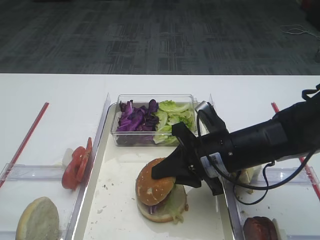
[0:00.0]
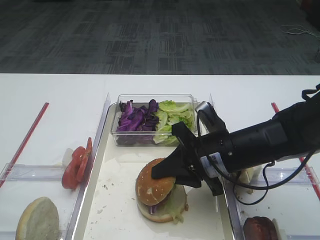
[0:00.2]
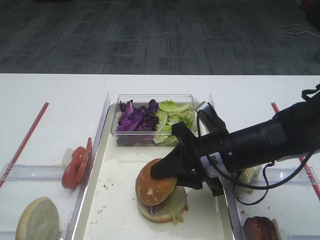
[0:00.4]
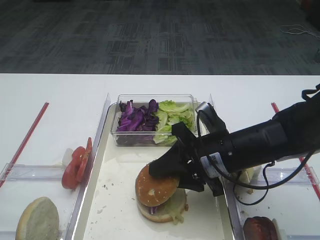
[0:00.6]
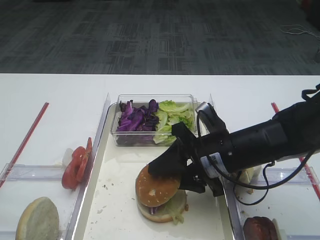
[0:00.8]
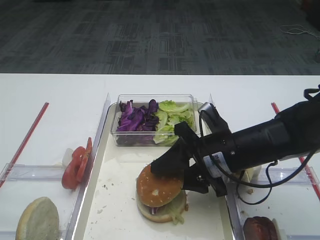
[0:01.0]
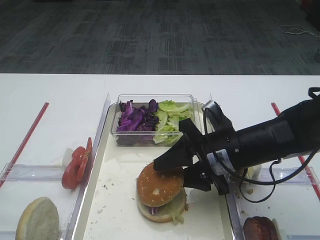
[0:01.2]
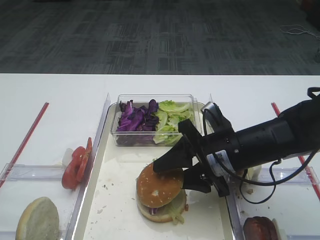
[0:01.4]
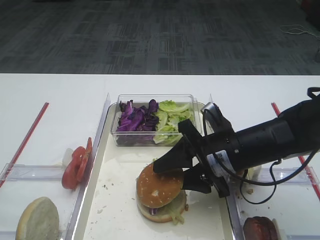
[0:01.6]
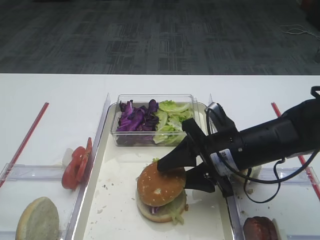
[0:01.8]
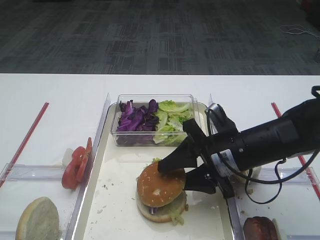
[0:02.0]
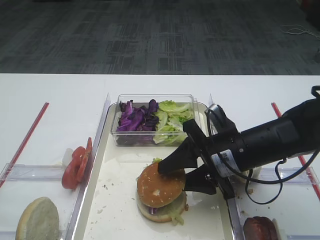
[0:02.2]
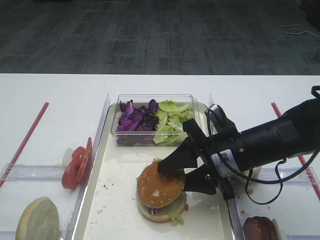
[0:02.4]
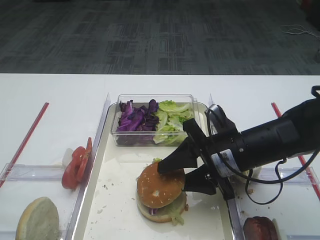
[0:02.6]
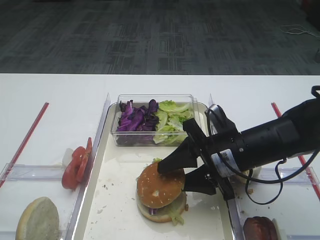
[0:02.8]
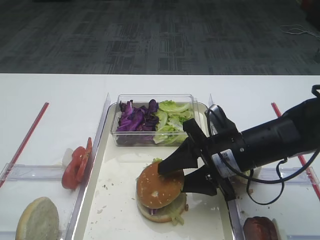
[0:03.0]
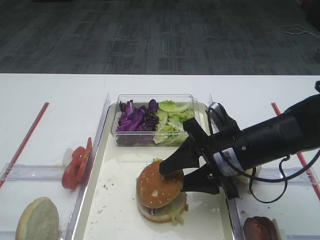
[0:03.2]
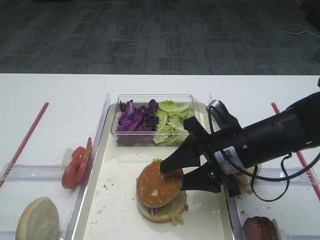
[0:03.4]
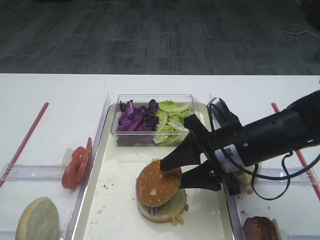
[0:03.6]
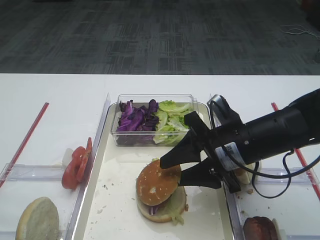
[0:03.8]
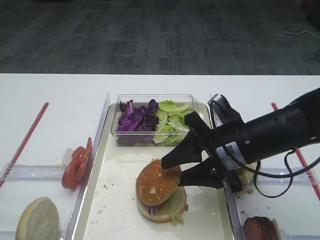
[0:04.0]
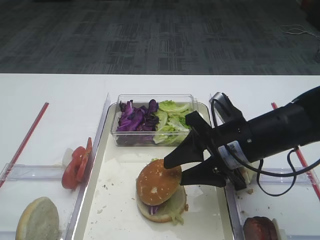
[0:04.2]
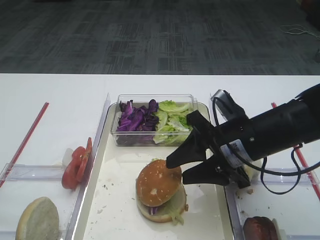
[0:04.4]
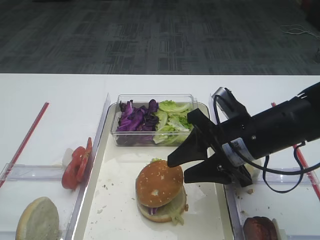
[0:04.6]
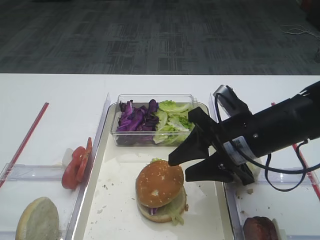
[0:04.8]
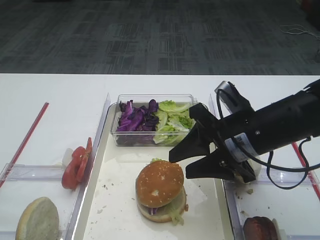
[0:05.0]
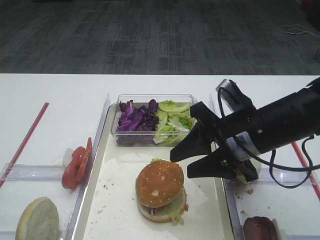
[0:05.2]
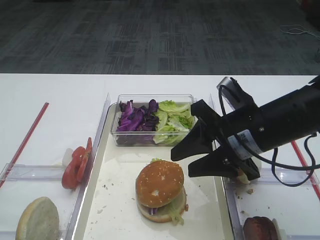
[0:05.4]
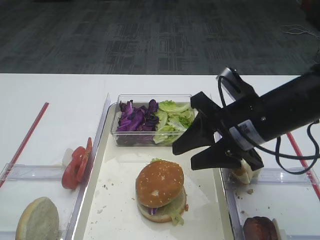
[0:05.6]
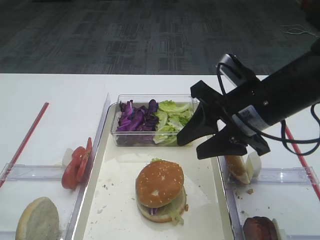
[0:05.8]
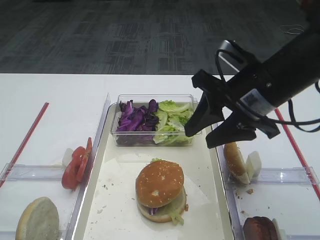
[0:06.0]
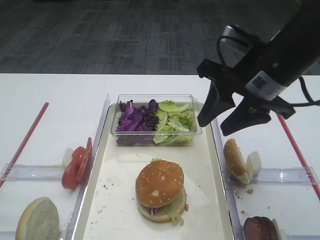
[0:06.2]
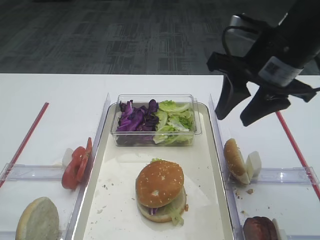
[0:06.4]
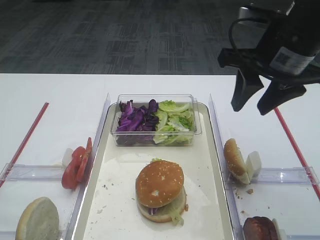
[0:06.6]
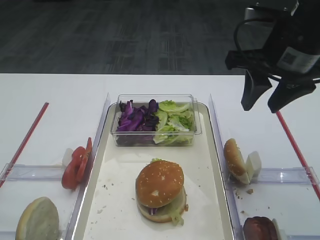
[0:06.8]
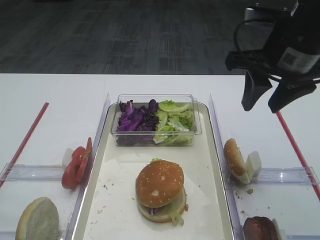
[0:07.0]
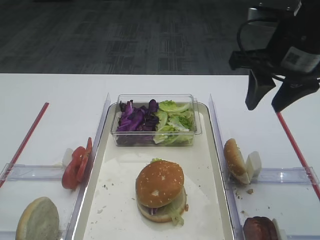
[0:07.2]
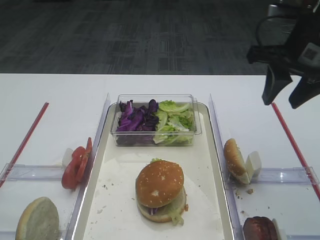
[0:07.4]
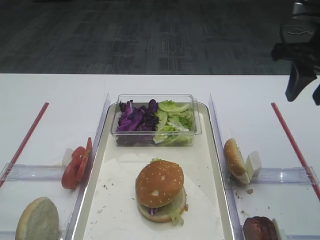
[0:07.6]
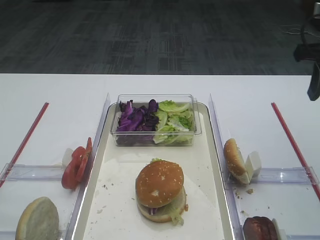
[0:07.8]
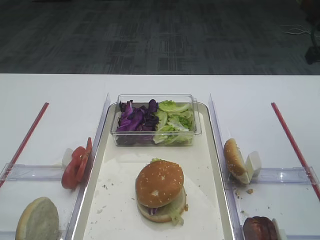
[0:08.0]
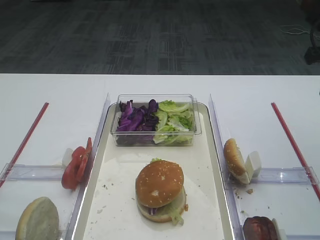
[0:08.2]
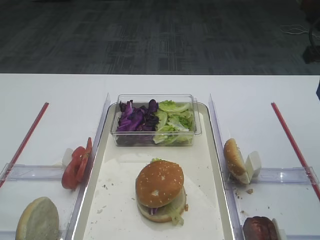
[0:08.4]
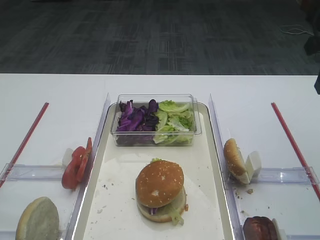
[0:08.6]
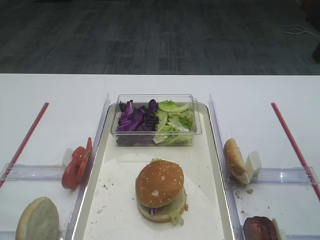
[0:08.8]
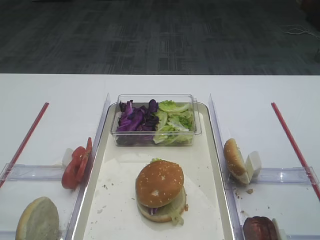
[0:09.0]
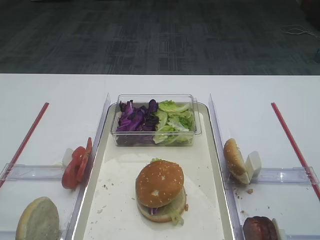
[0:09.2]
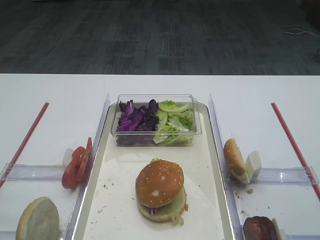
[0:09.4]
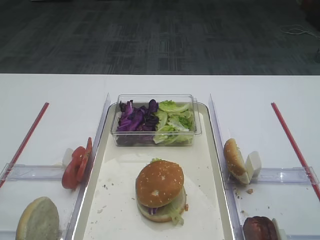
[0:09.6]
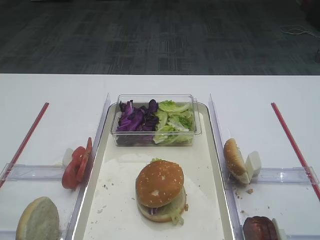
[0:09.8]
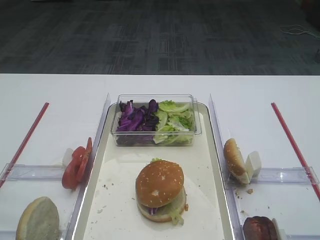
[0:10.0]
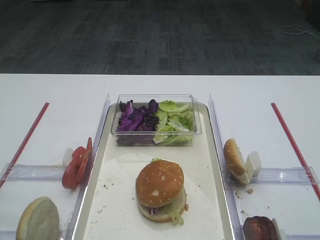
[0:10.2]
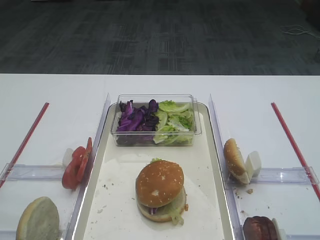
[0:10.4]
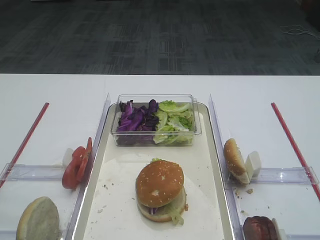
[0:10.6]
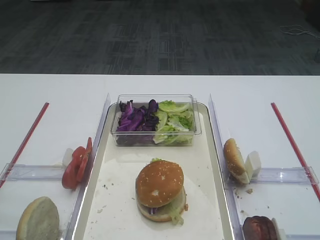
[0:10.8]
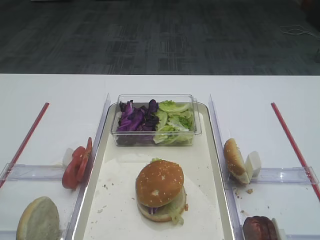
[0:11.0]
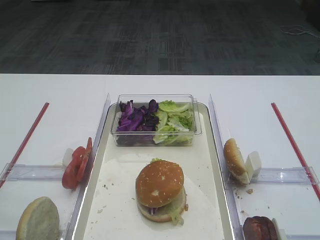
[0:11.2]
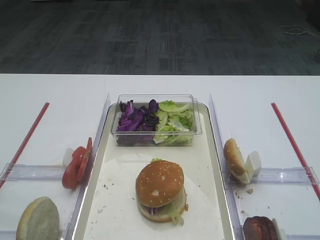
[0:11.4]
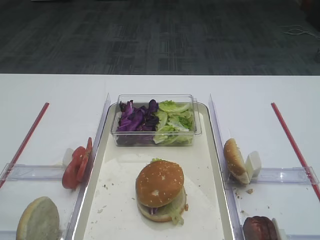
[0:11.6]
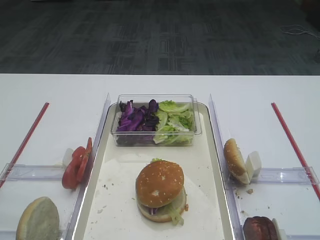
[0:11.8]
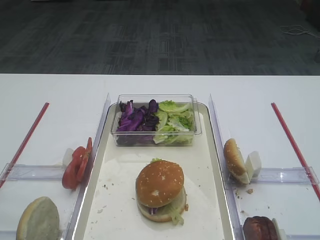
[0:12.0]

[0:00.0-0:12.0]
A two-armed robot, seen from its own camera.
Step, 0:00.0 to 0:04.8: Place the hamburger lid on the purple cabbage with the right gripper.
0:00.0 to 0:01.6: The right gripper opens its fingers.
0:01.6 to 0:03.0: The two grippers keep their place.
0:03.0 to 0:04.4: The grippers make only small movements.
0:04.4 to 0:06.0: The right gripper moves upward, approximately 10 cm.
0:06.0 to 0:07.6: The right gripper travels to the right and upward by about 10 cm.
0:07.6 to 0:09.0: The right gripper shifts roughly 5 cm backward.

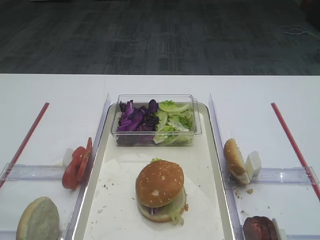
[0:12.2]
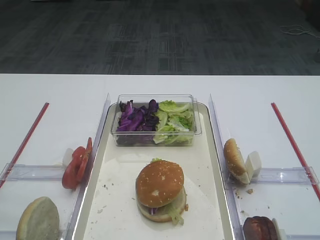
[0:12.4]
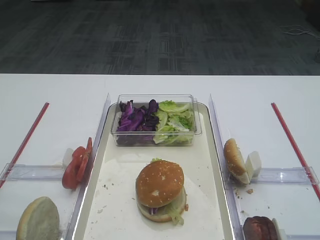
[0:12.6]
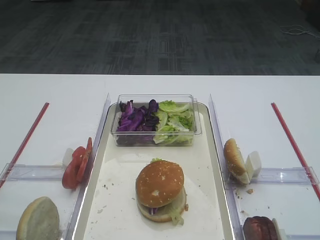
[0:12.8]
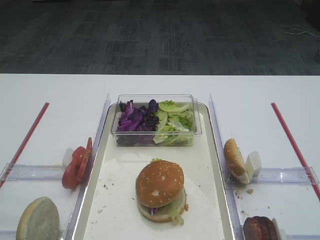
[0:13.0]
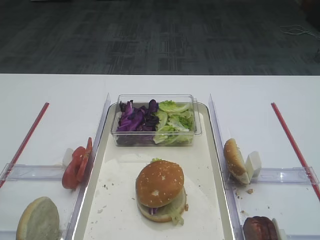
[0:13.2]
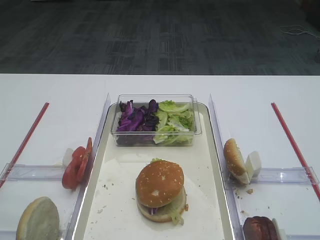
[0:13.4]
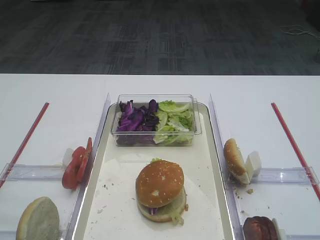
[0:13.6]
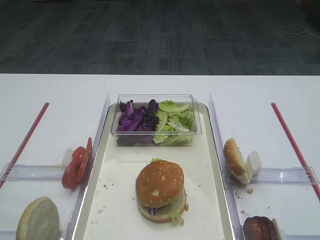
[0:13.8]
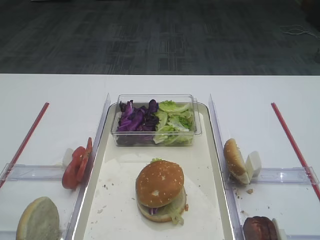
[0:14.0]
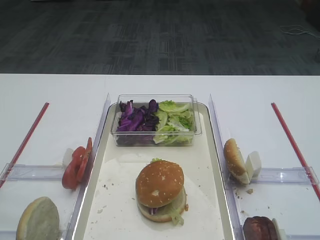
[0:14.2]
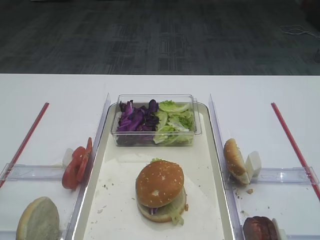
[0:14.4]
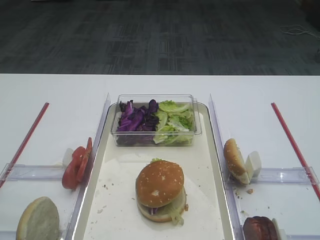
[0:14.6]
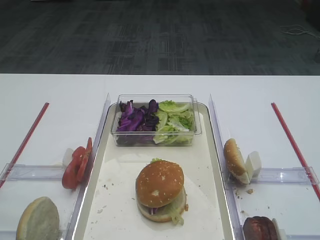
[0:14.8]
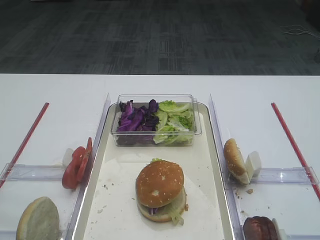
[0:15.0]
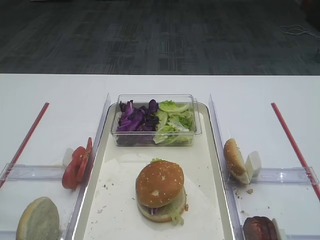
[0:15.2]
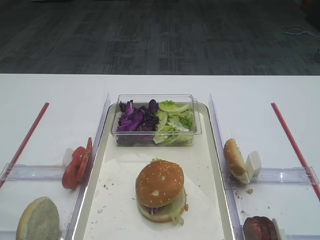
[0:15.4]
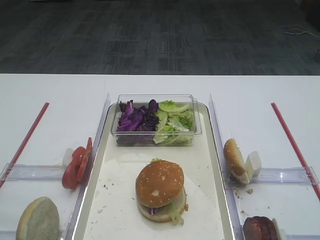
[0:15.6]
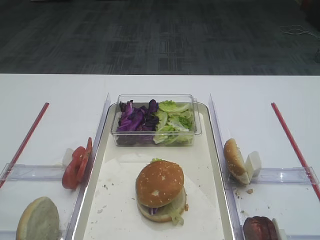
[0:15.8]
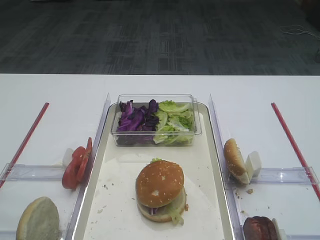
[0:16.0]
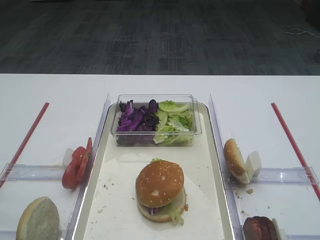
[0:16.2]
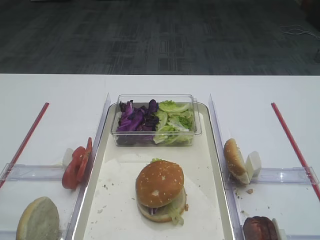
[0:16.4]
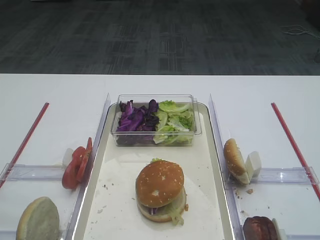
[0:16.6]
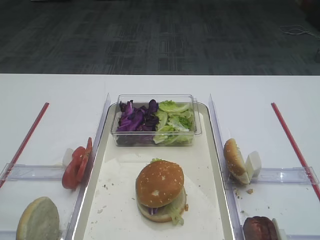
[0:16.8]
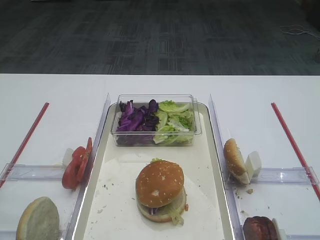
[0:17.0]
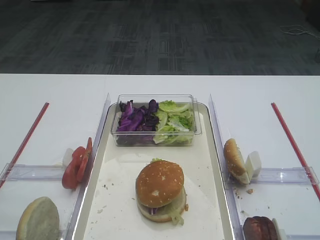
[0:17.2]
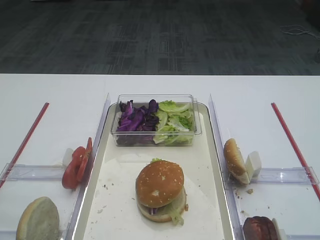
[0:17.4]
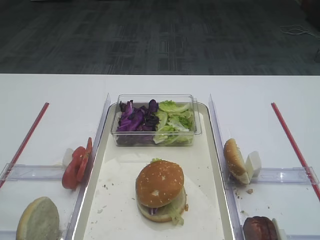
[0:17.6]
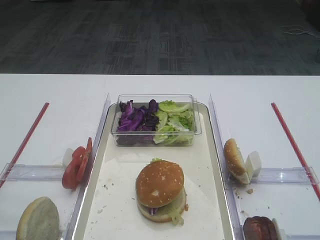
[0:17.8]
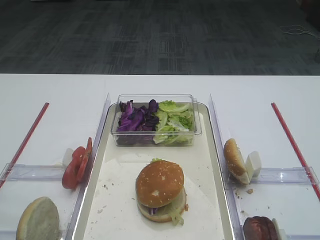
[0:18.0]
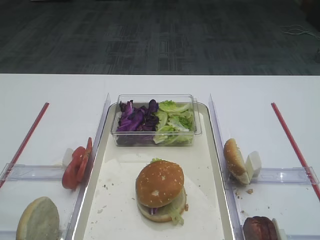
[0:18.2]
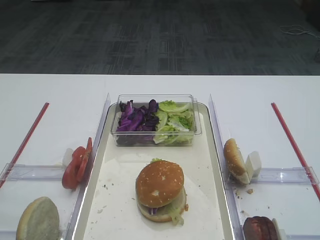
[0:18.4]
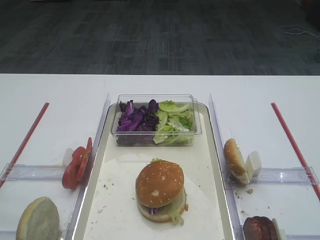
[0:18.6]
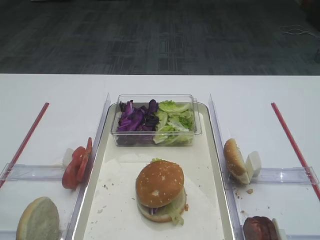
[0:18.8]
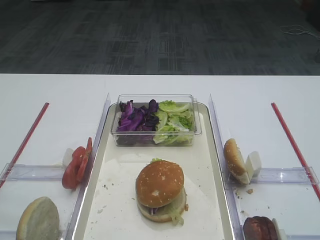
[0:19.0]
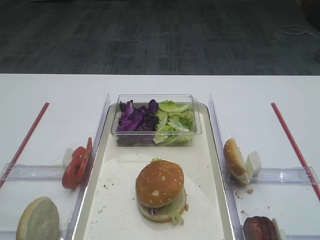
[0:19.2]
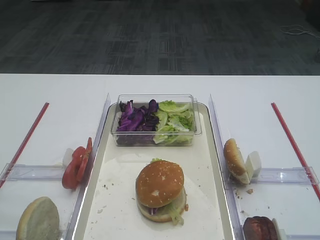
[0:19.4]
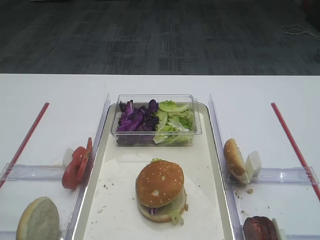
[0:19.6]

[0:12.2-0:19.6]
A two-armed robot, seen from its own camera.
0:12.2 to 0:19.6: The two grippers keep their place.

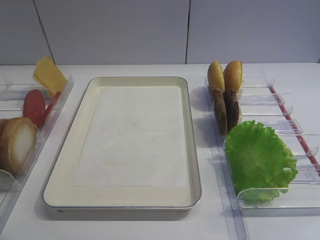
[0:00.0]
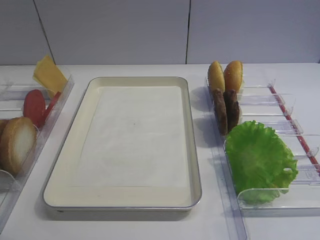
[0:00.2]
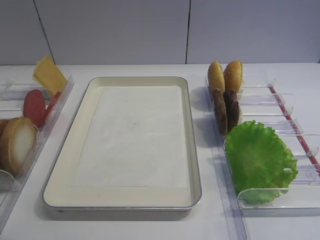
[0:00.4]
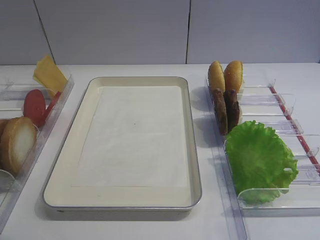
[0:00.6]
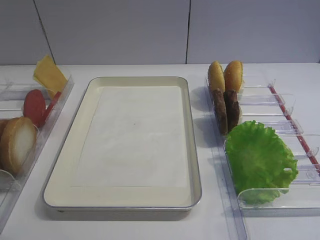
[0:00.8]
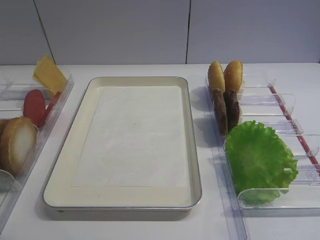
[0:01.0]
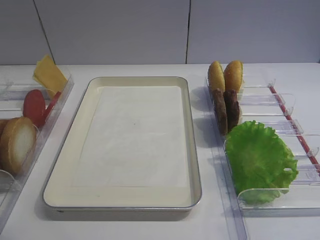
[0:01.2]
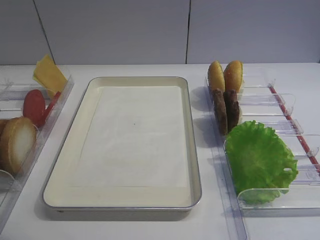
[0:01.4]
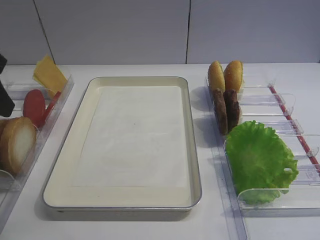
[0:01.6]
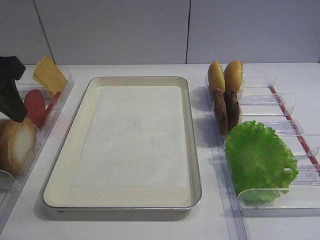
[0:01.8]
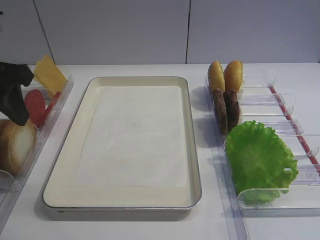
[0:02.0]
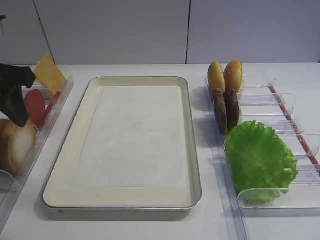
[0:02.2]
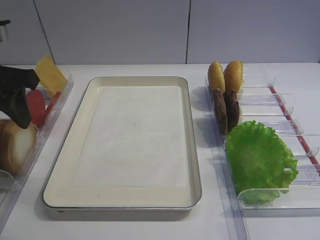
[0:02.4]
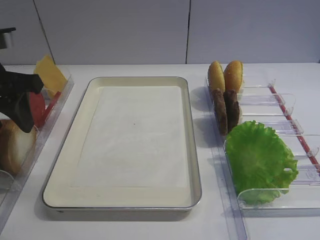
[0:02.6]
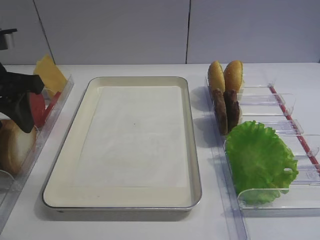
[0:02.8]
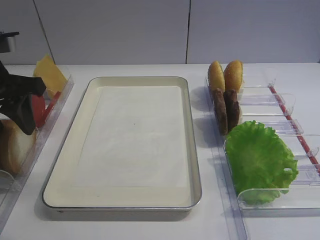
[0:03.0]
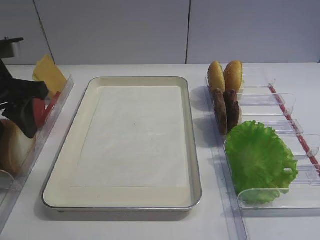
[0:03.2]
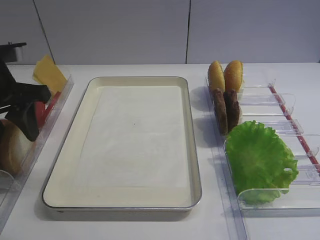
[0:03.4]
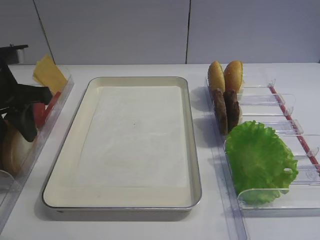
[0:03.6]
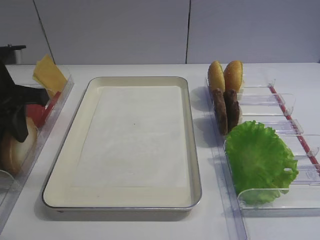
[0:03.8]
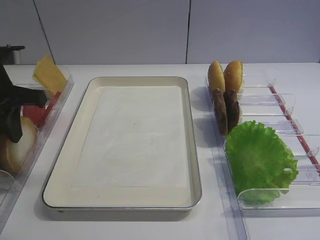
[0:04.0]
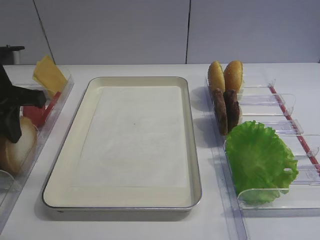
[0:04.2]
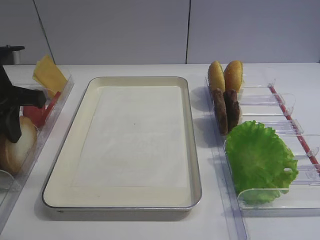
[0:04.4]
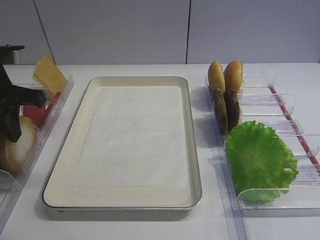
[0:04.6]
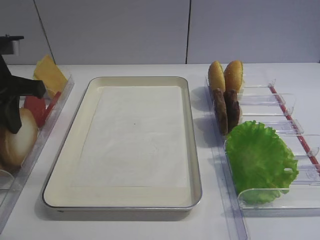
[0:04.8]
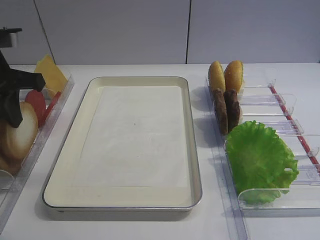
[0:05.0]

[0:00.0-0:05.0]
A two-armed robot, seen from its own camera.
Step, 0:00.0 to 0:04.0: Pick up the bread slice with the left gripper.
0:01.6 to 0:03.4: The left gripper goes about 10 cm downward and forward.
0:03.4 to 0:05.0: The left gripper closes.
